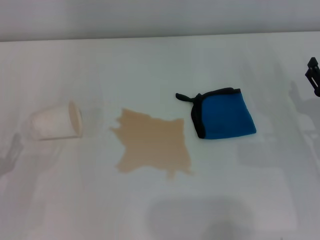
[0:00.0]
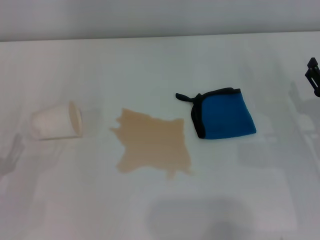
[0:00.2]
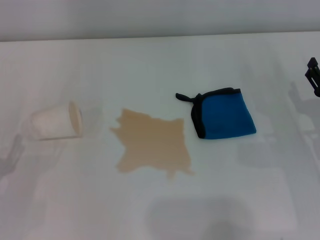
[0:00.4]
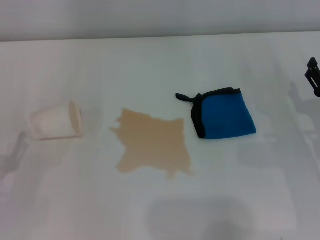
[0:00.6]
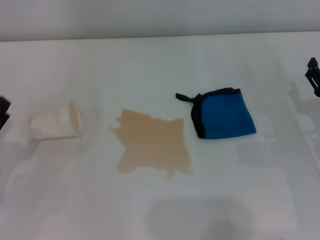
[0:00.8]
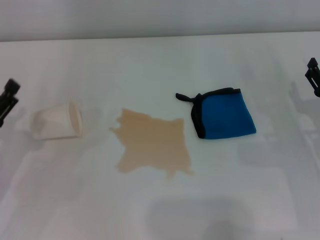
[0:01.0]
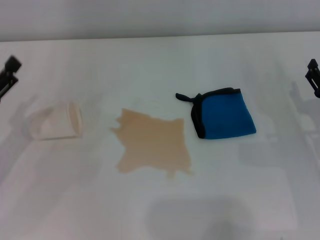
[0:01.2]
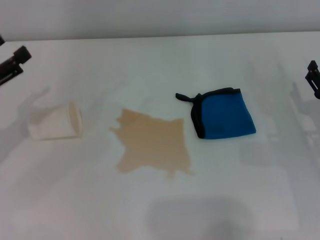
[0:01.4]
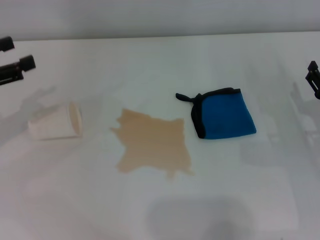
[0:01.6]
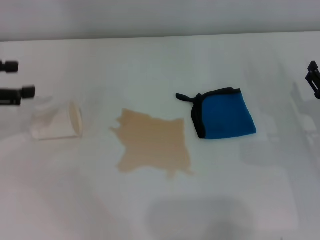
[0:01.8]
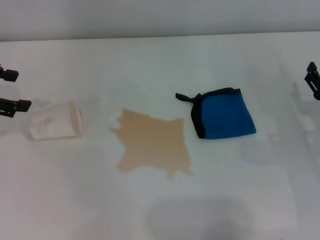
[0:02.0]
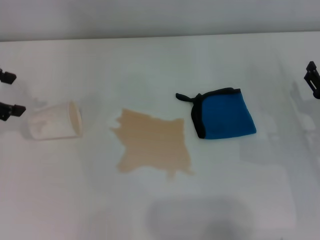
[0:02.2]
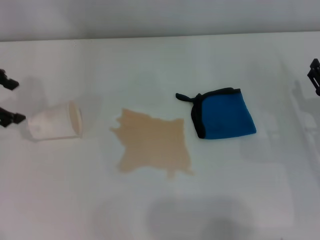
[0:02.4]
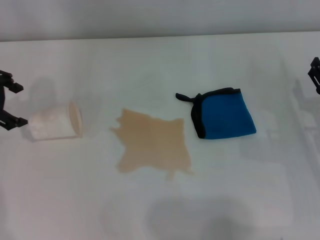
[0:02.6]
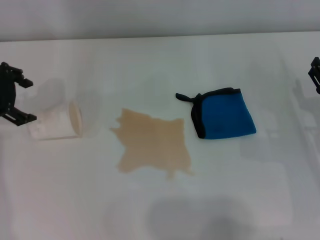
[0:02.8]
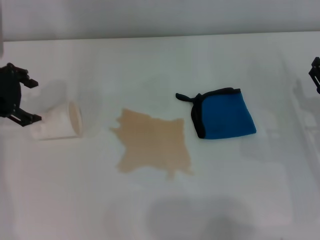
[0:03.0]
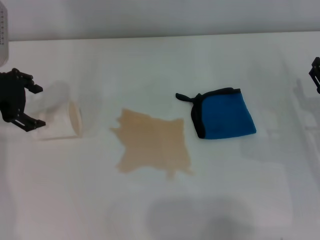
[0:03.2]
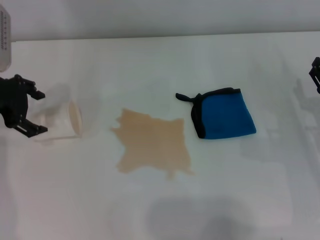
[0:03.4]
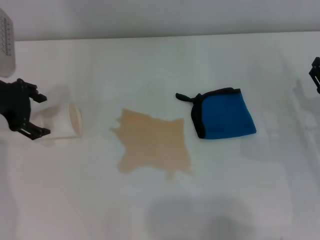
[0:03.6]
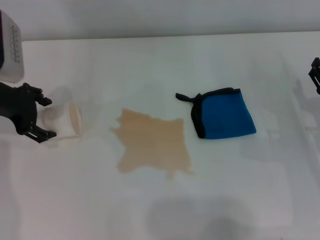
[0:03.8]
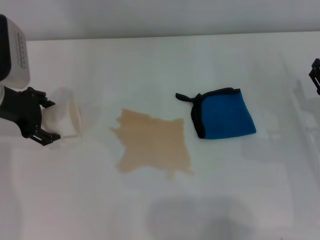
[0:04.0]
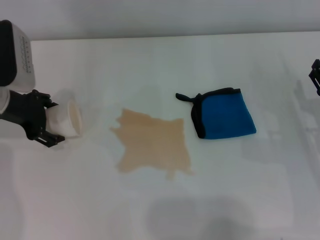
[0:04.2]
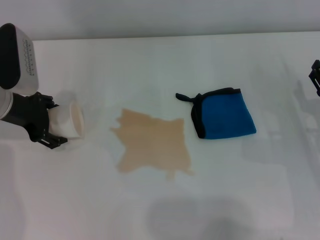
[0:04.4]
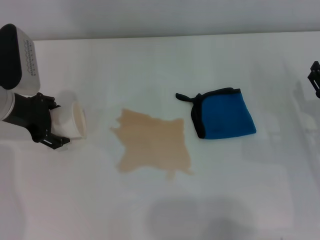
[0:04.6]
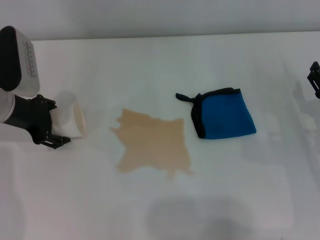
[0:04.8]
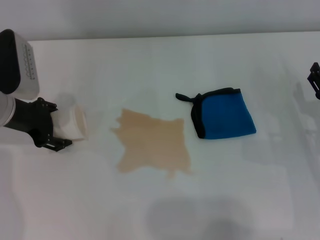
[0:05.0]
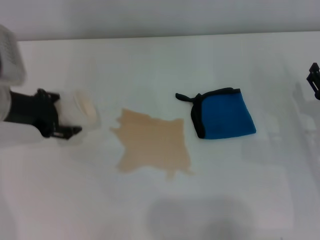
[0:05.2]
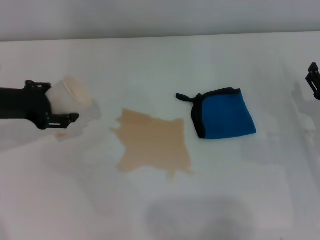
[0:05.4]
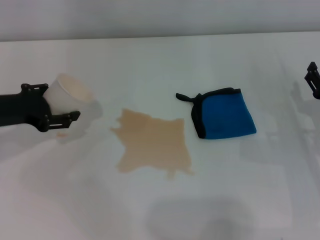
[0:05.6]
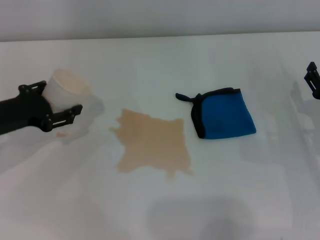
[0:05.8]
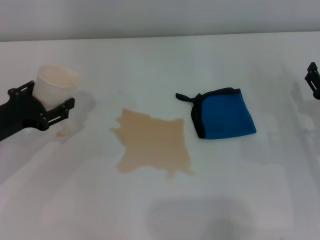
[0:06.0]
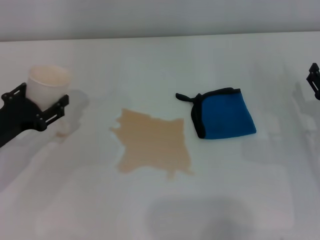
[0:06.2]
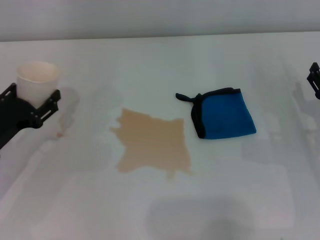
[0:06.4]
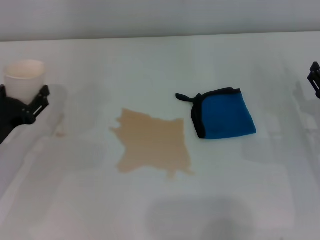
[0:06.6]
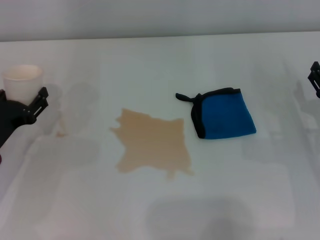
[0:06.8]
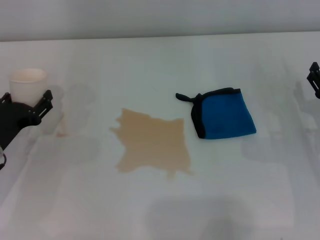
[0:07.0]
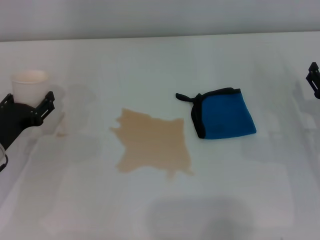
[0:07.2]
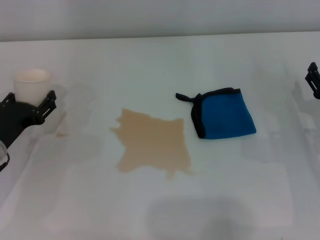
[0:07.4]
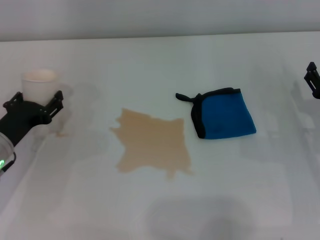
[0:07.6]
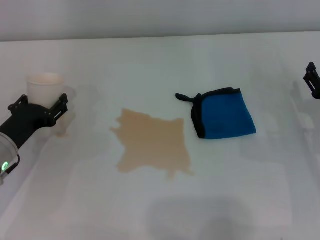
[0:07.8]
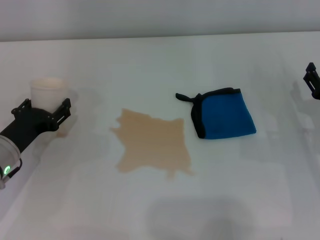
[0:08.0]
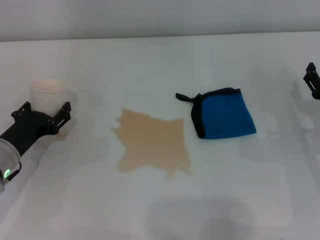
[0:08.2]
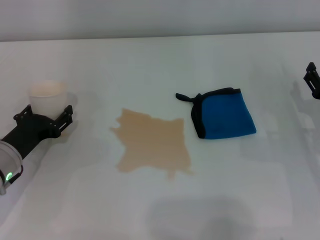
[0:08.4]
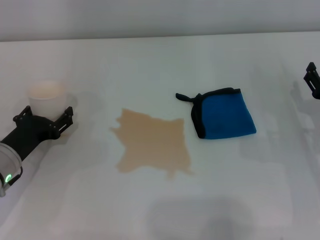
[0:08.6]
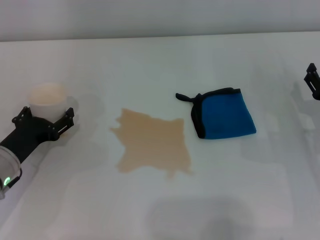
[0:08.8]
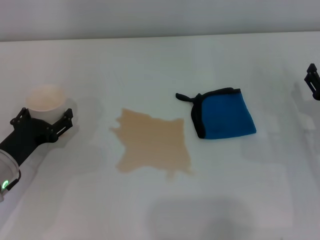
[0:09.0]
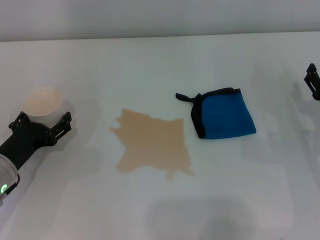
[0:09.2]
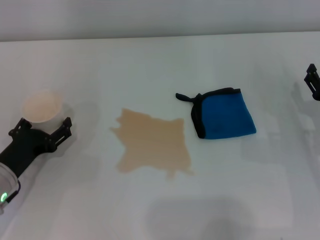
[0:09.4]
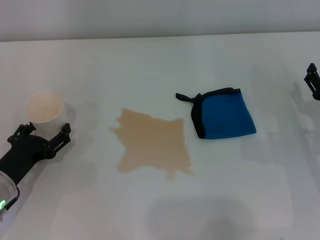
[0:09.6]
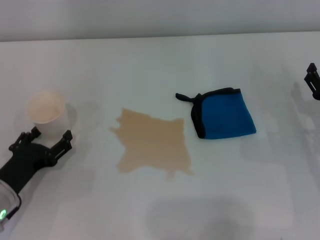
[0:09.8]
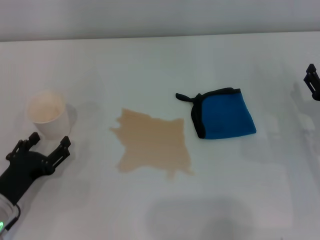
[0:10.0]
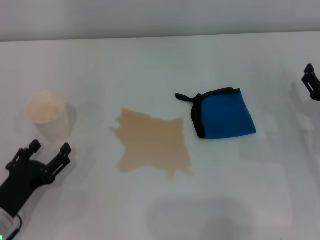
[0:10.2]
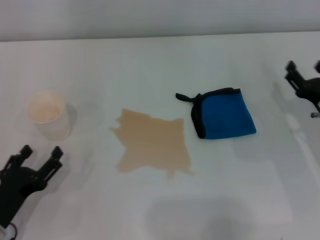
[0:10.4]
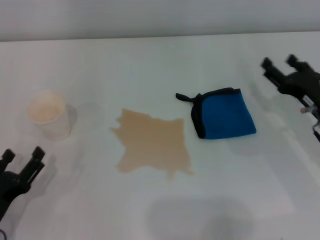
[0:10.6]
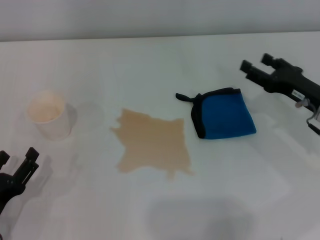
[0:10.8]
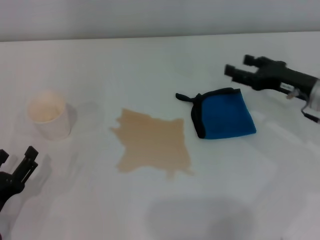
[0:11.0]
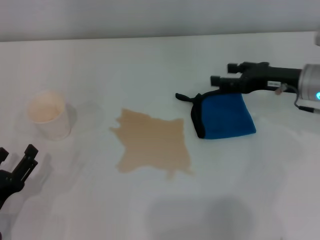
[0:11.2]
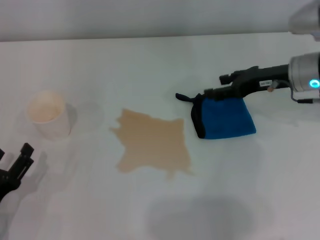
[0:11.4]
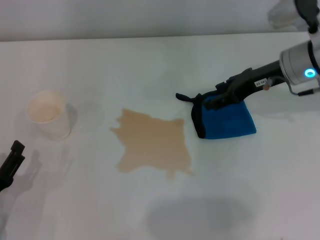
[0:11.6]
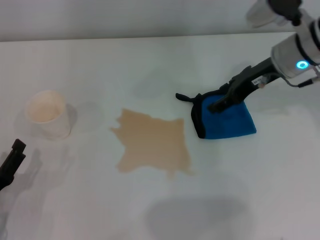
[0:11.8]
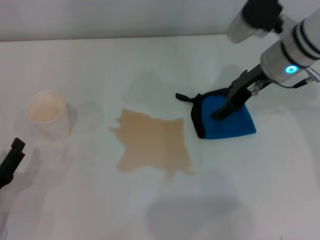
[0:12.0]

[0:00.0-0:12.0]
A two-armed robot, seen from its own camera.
Step, 0:00.0 to 0:04.8: Grasp the paper cup with the left gripper.
Step, 0:05.2 to 0:09.2: Stand the paper cup upright with the left gripper.
0:00.0 to 0:01.6: The left gripper travels upward and forward by some 20 cm.
0:01.6 to 0:03.0: The left gripper travels to the right and forward by approximately 10 cm.
0:03.0 to 0:04.4: The left gripper is displaced downward by about 5 cm.
0:04.4 to 0:06.0: The left gripper travels backward by approximately 10 cm, and closes.
0:06.0 to 0:07.6: The left gripper heads downward, covering roughly 5 cm.
0:07.6 to 0:09.0: The left gripper opens up.
0:09.0 to 0:10.4: The left gripper travels backward by about 10 cm.
0:10.4 to 0:12.0: The right gripper shifts some 20 cm forward, upward and to the left.

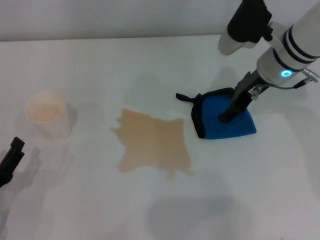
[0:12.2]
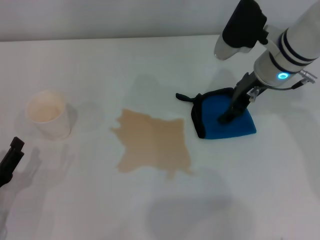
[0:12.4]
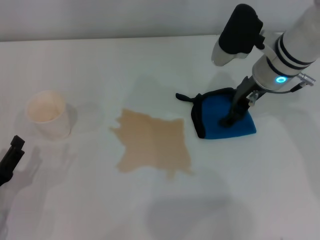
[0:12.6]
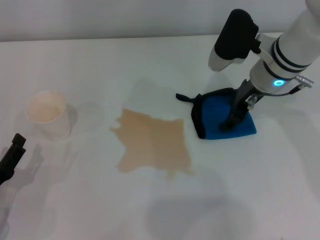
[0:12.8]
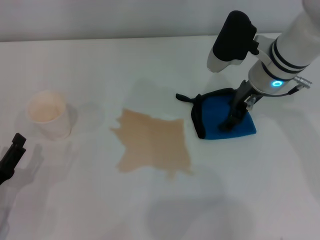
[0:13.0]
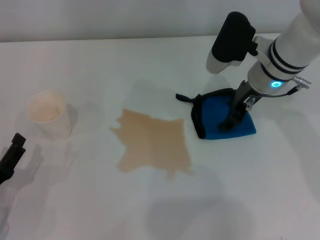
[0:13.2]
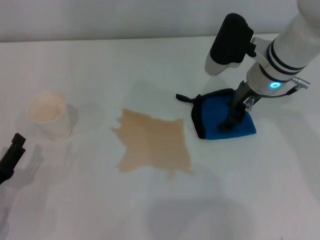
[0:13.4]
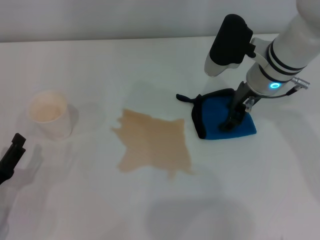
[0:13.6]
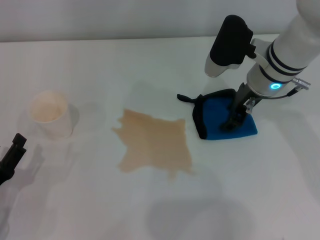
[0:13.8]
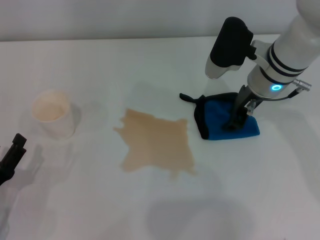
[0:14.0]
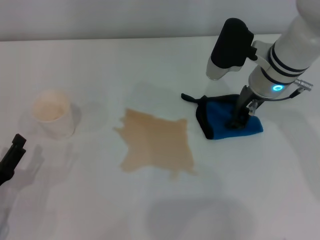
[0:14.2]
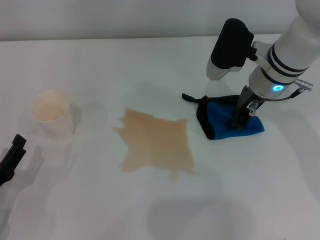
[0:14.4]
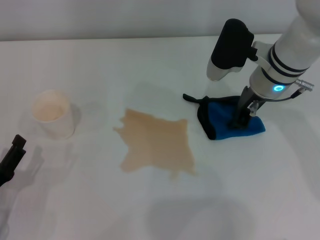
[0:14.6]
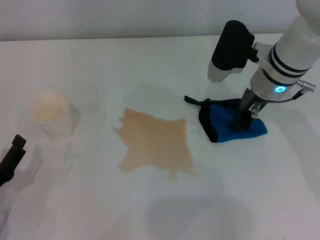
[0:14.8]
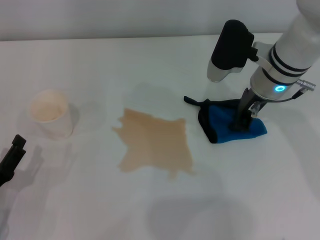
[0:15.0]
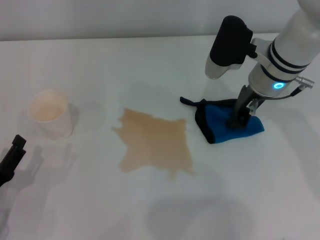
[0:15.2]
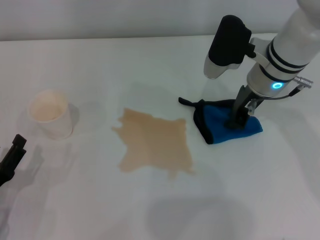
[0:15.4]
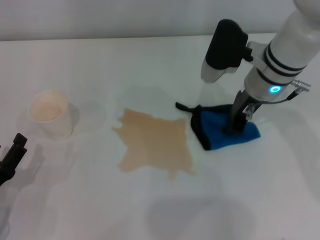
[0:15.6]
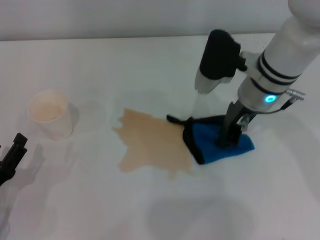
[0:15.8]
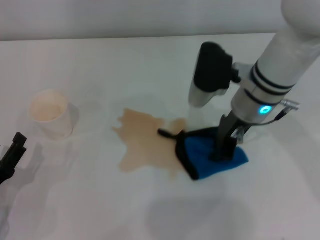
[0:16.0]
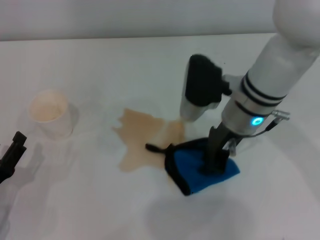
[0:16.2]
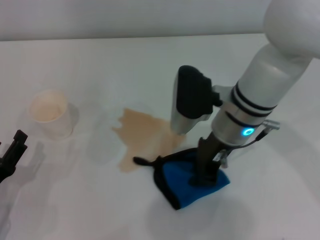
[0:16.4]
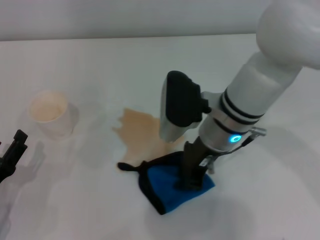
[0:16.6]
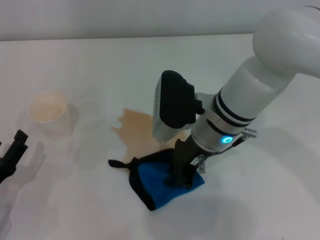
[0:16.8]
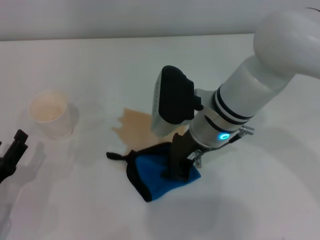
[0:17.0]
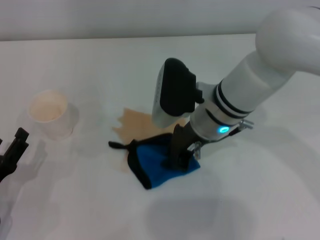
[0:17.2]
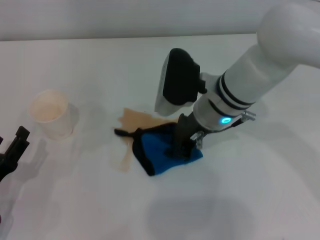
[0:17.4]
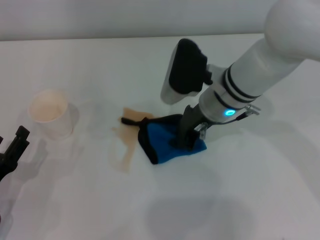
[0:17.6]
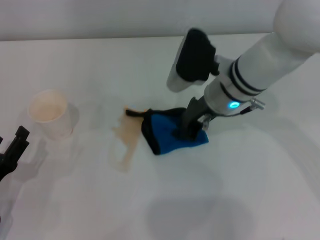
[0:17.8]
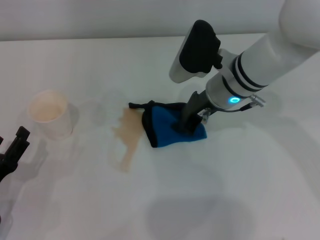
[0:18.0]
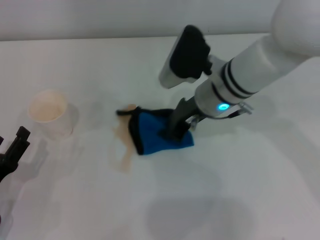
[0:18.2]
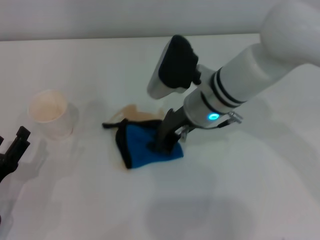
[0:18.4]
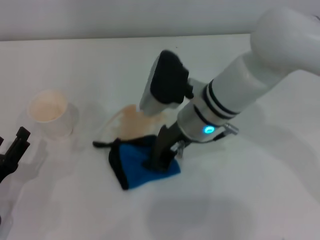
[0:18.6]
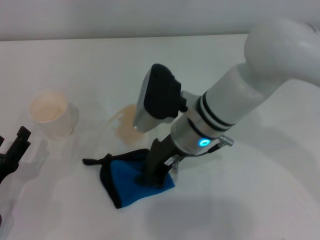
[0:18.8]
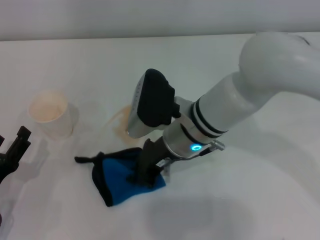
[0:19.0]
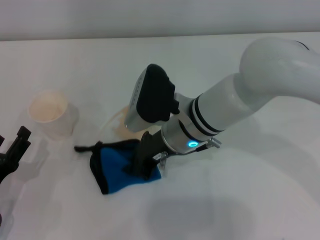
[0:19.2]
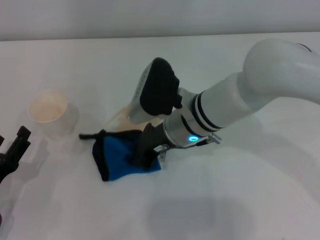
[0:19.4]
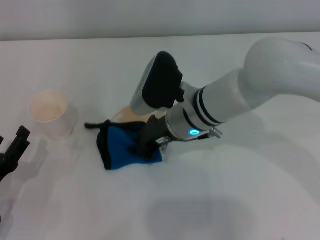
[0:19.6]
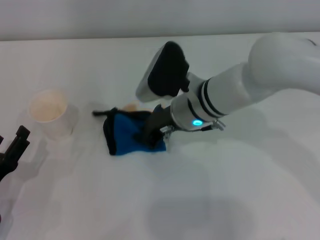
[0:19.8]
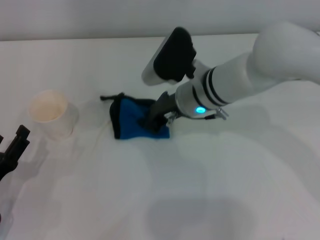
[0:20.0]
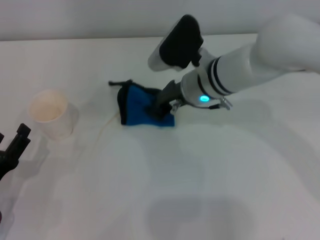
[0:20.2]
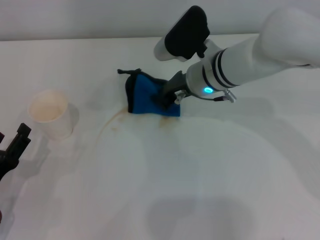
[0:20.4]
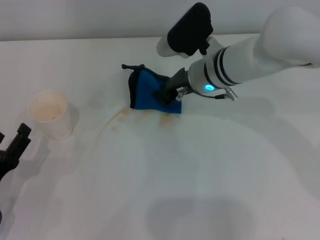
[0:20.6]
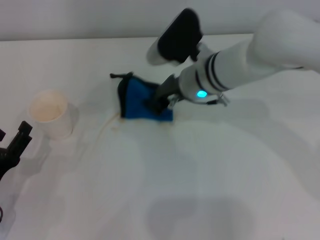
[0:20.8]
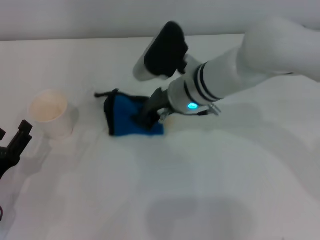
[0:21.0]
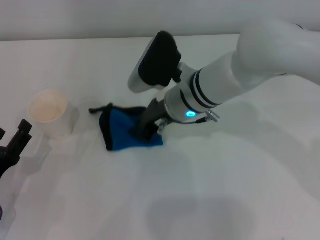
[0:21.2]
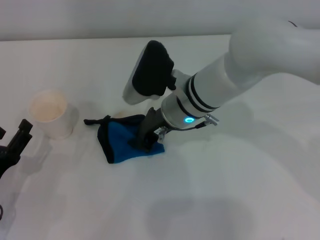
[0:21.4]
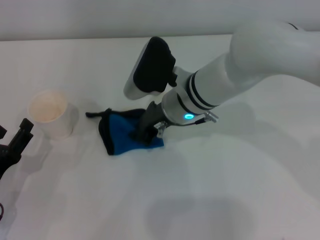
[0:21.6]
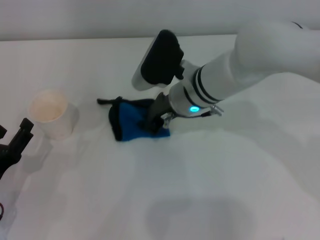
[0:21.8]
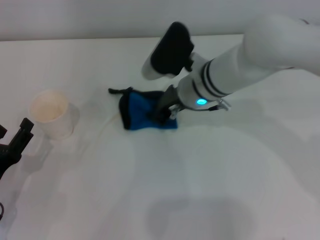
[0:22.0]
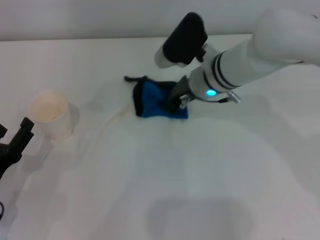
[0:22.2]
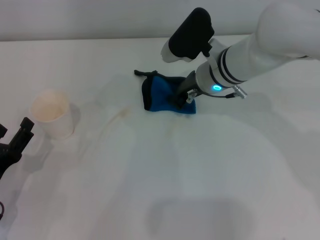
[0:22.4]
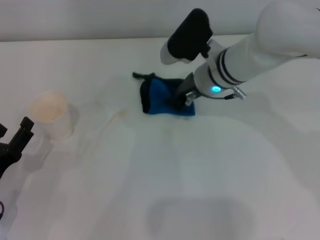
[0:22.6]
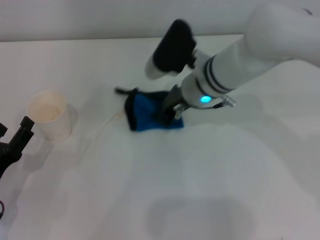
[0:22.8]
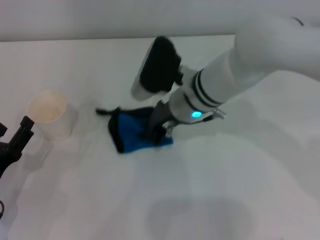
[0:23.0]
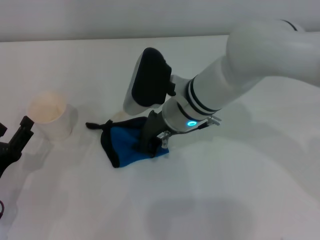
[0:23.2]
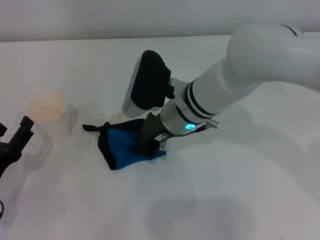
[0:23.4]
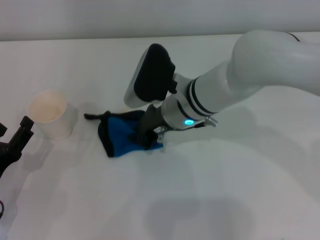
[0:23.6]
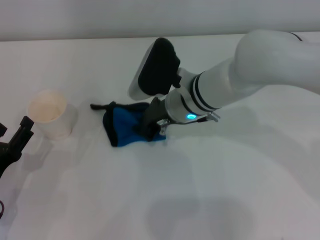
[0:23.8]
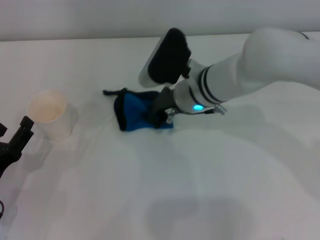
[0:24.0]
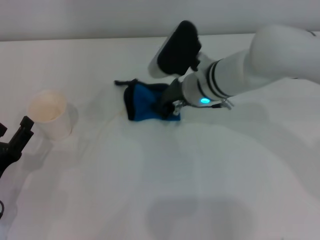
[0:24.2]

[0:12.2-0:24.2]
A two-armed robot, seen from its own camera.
Step, 0:12.2 to 0:15.2: Grasp the rag with the right gripper.
0:12.2 to 0:13.8: The grippers make only small movements.
0:13.8 to 0:15.2: The right gripper closes.
0:15.2 to 0:16.6: The right gripper heads to the left and backward, covering some 10 cm.
0:16.6 to 0:18.2: The right gripper ends up approximately 5 cm from where it was.
0:19.8 to 0:21.2: The grippers move only a little.
0:21.2 to 0:22.6: The right gripper moves to the right, some 5 cm.
